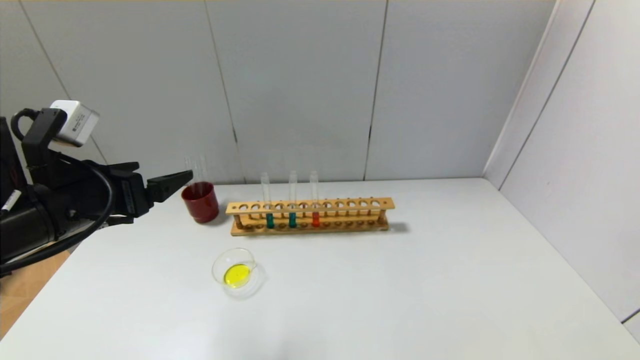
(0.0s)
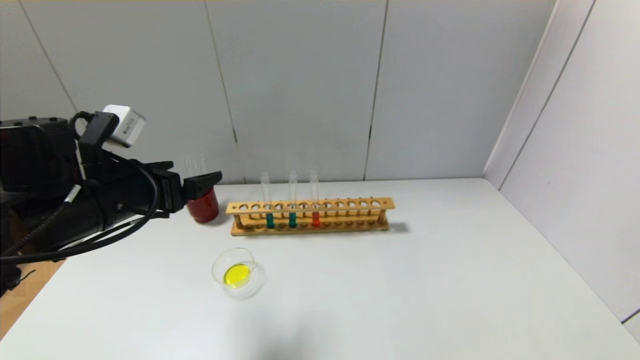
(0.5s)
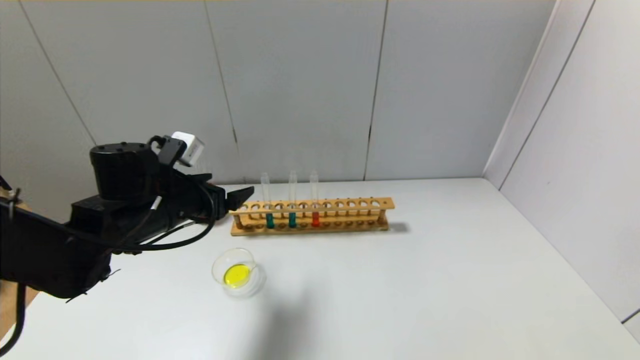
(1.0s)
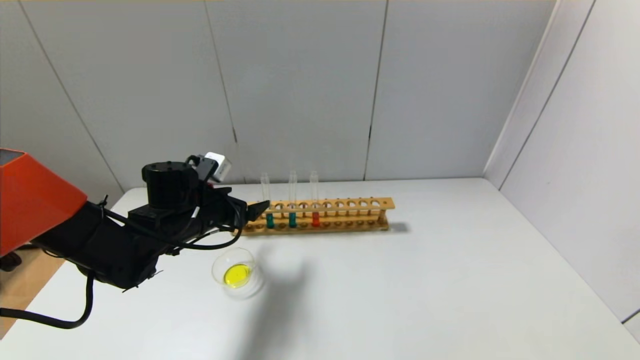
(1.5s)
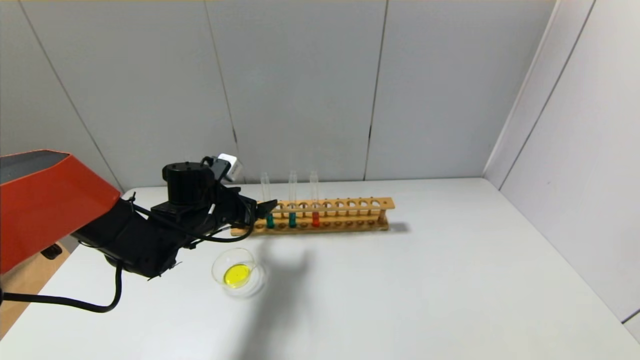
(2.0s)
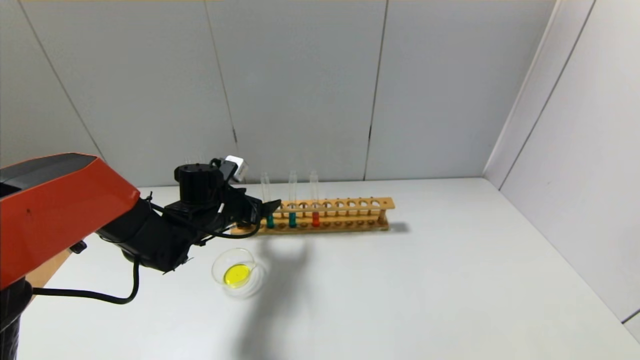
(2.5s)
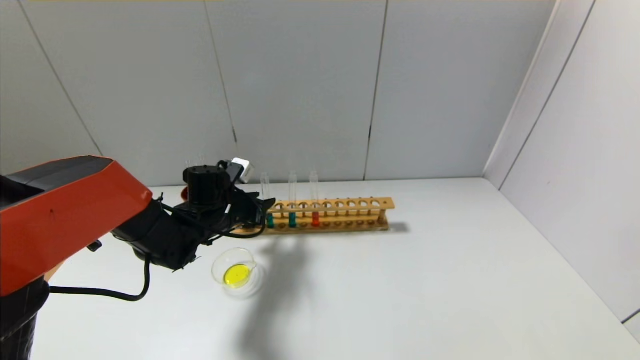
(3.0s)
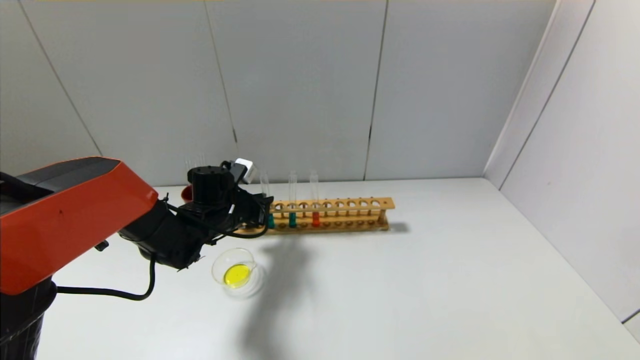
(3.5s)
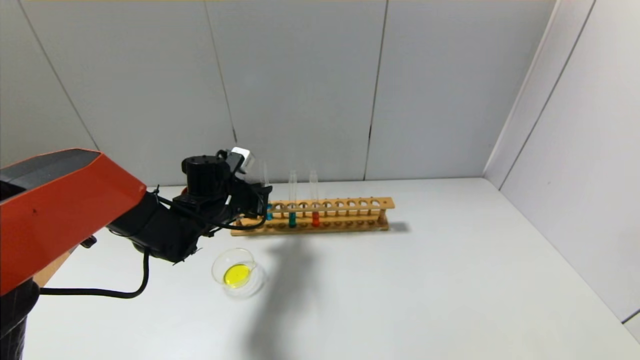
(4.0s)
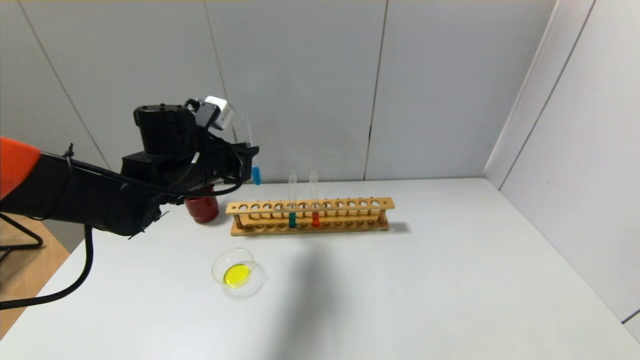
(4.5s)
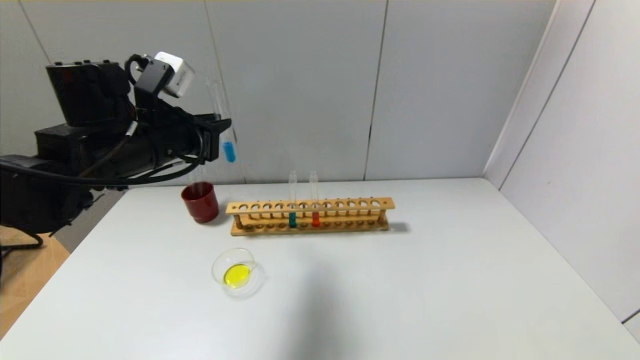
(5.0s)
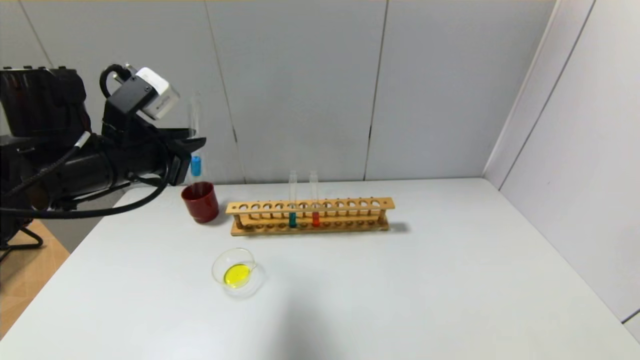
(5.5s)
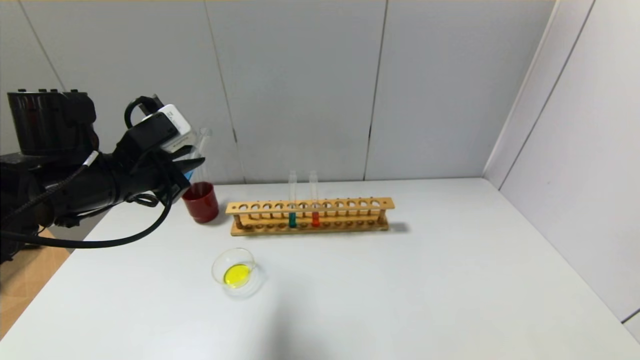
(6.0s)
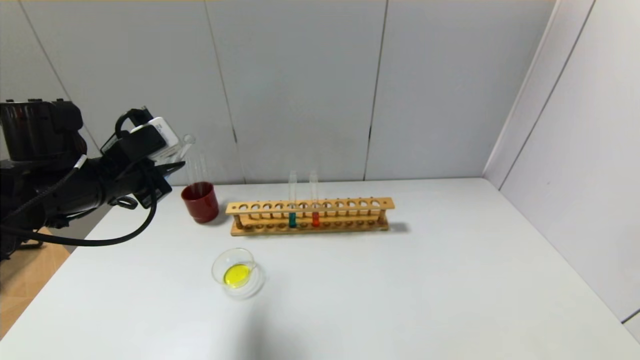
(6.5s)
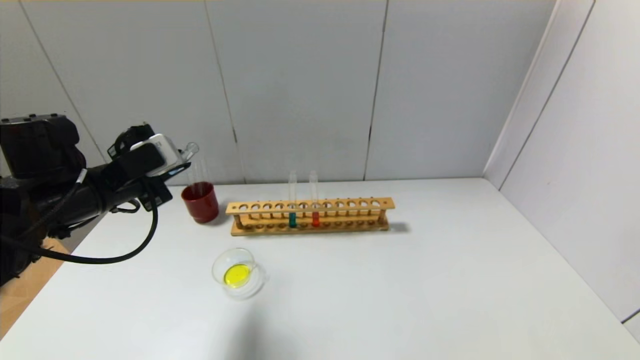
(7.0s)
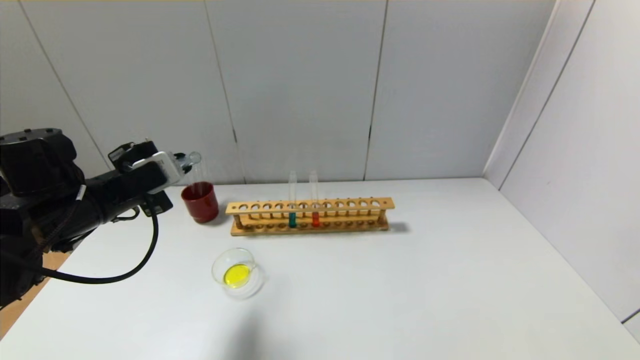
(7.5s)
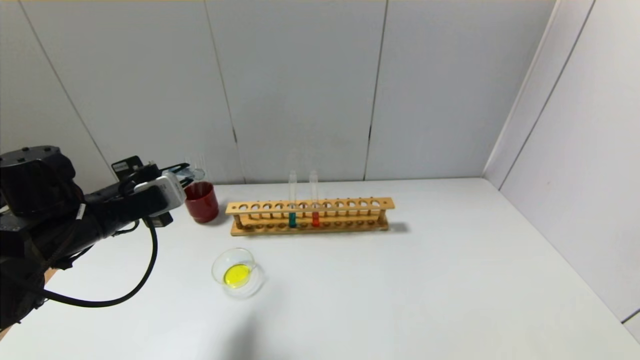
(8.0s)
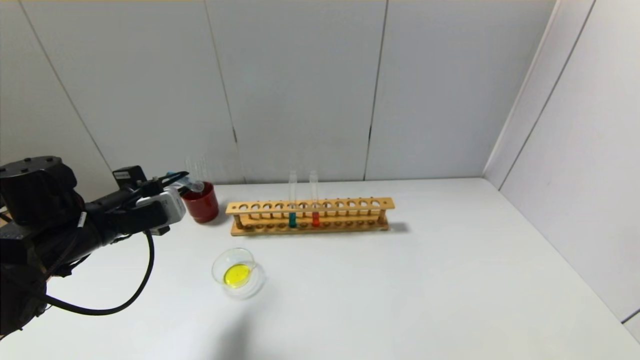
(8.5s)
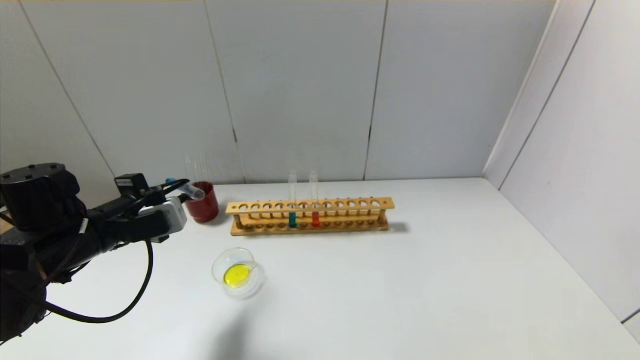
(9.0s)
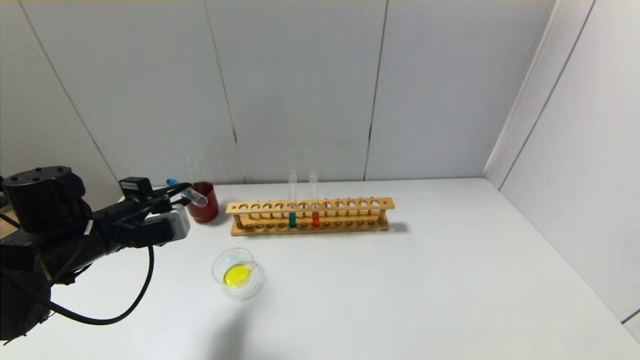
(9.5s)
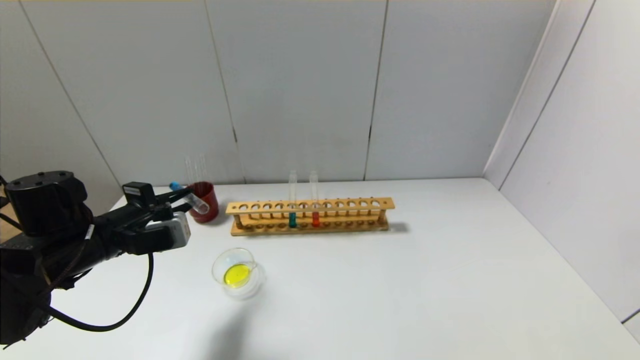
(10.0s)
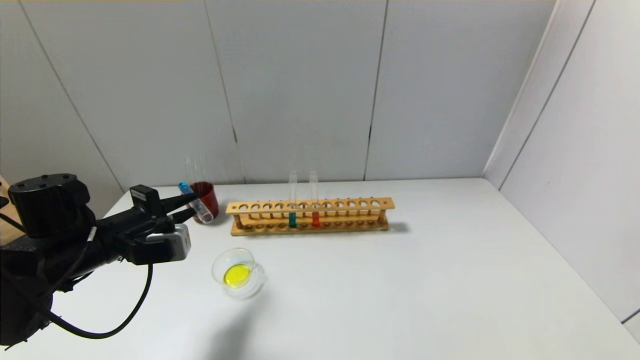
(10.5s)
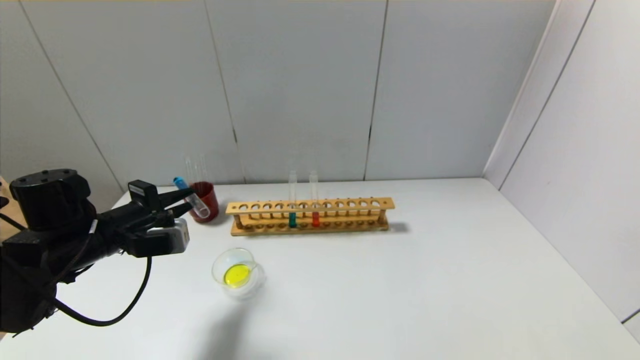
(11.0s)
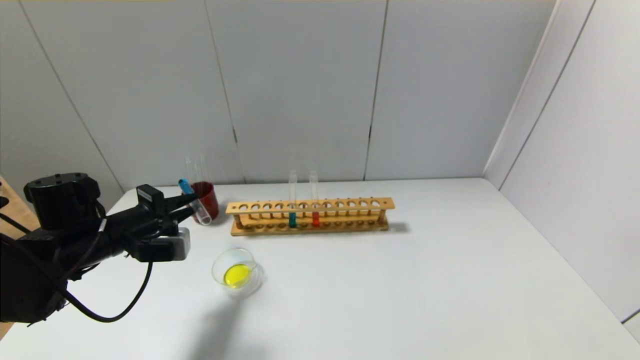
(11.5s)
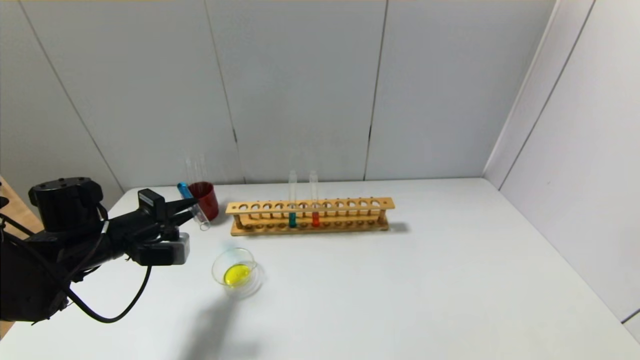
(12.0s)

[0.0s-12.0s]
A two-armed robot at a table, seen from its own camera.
Step, 0.0s to 3.5s: Grasp the blue reagent with the left gripper.
0.0s to 2.0s: The left gripper goes roughly 20 cm forward, downward and to the right.
2.0s to 4.0s: The left gripper closes.
4.0s to 6.0s: The left gripper travels upward, backward and to the left by about 20 cm.
6.0s to 8.0s: The left gripper shifts about 5 cm downward.
8.0s to 10.0s: The grippers stay close to where they were, moving slightly.
10.0s to 12.0s: The grippers make only small movements.

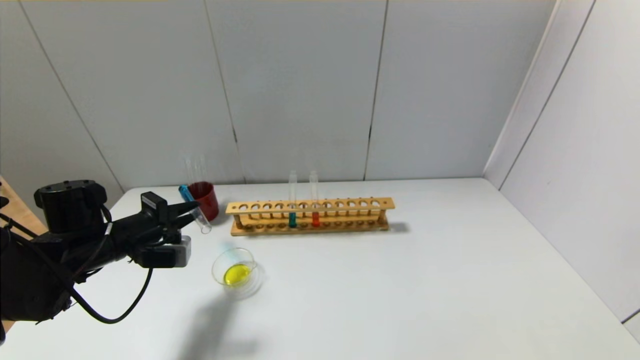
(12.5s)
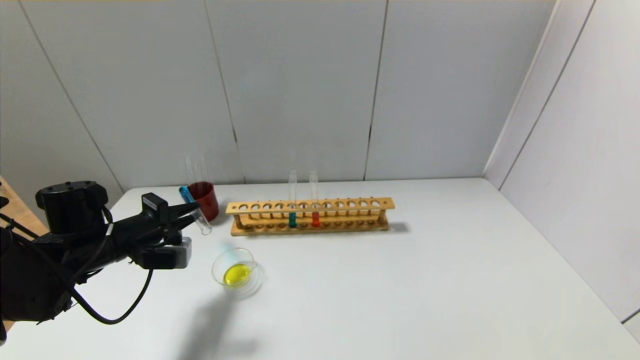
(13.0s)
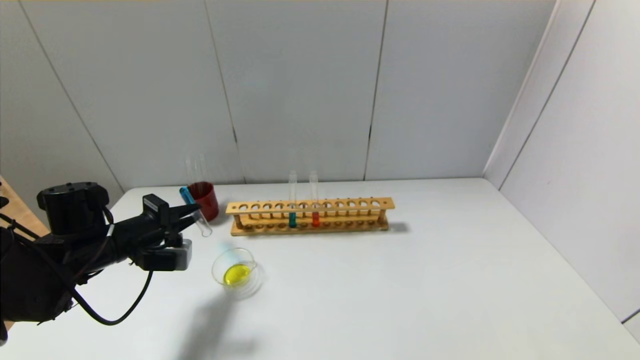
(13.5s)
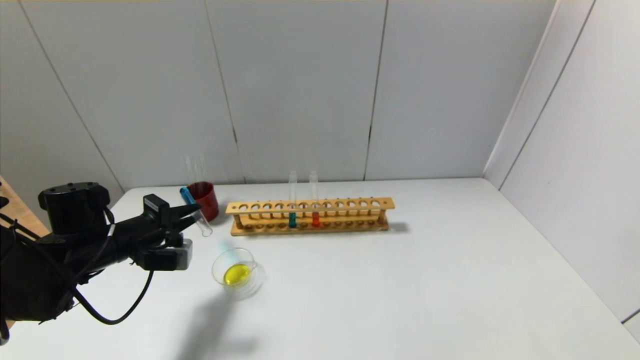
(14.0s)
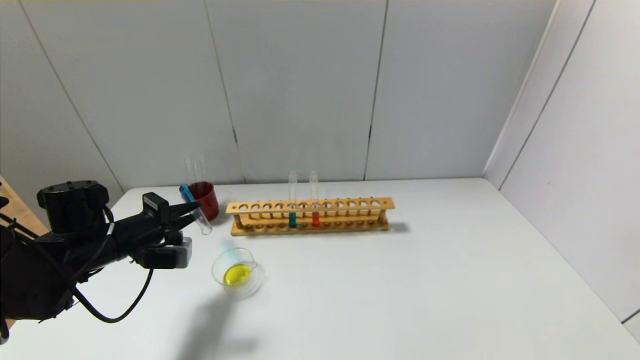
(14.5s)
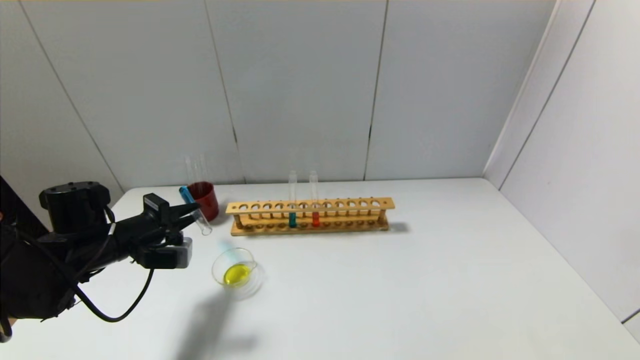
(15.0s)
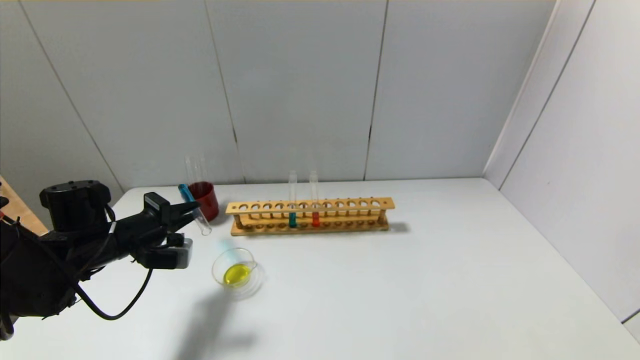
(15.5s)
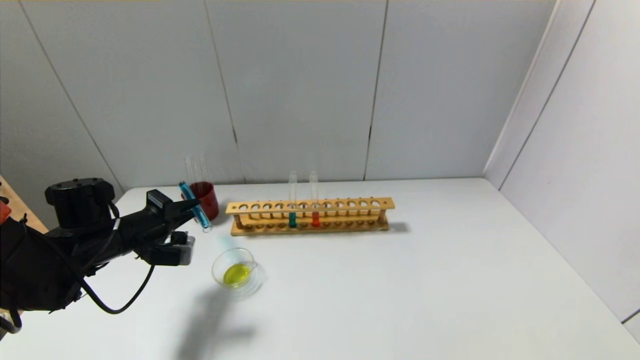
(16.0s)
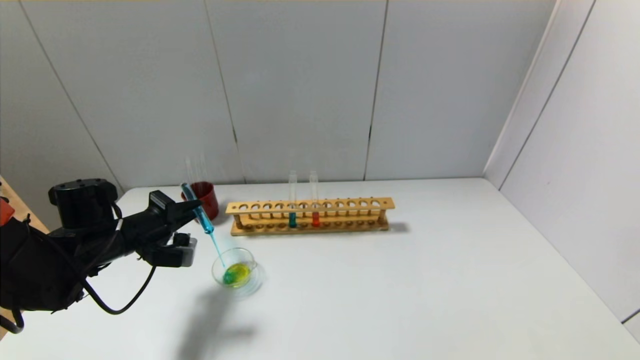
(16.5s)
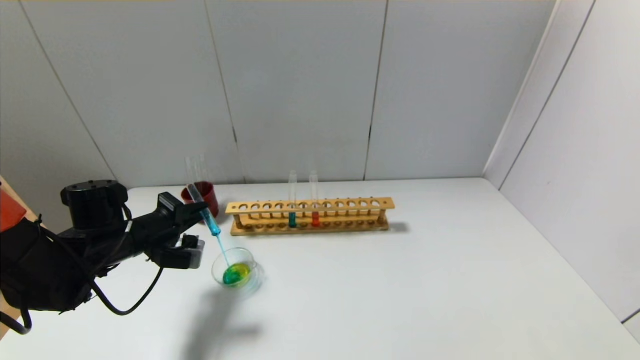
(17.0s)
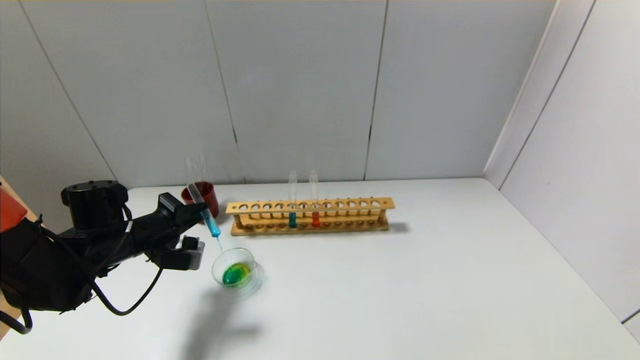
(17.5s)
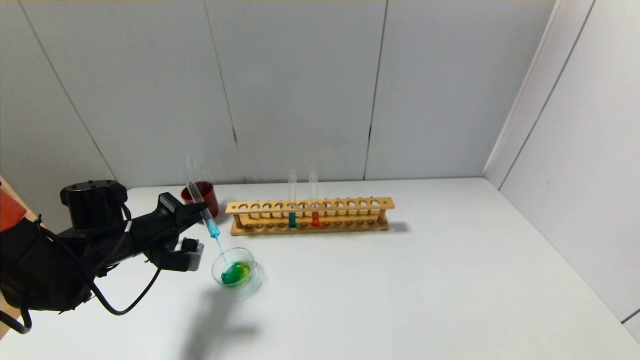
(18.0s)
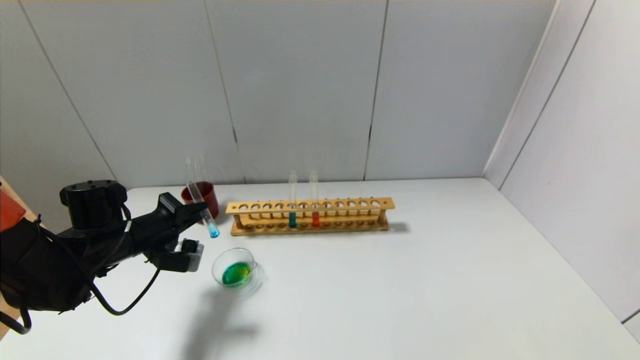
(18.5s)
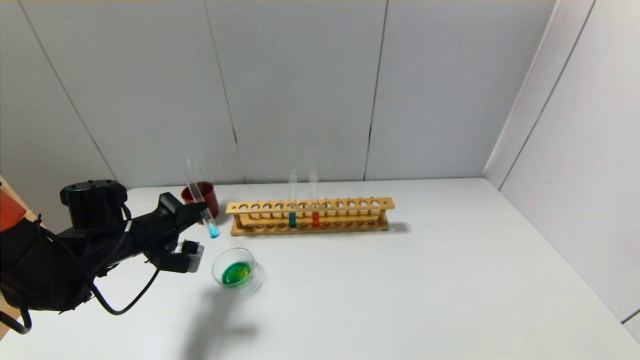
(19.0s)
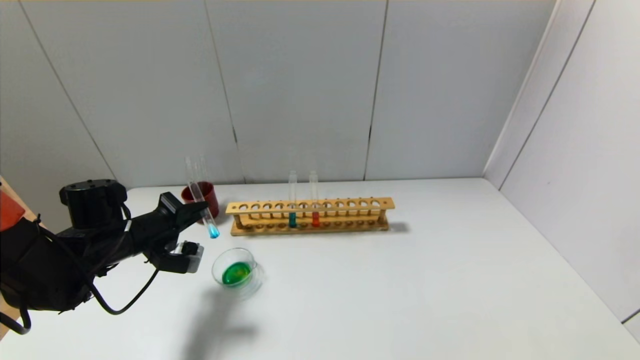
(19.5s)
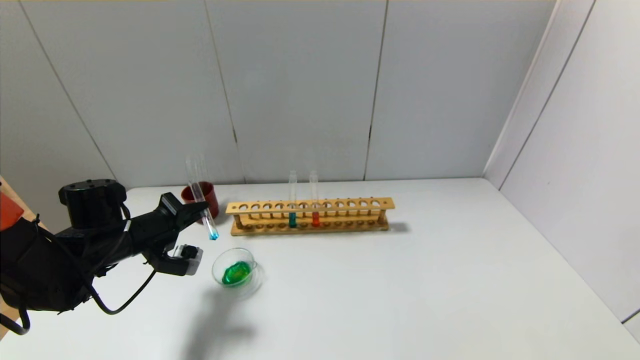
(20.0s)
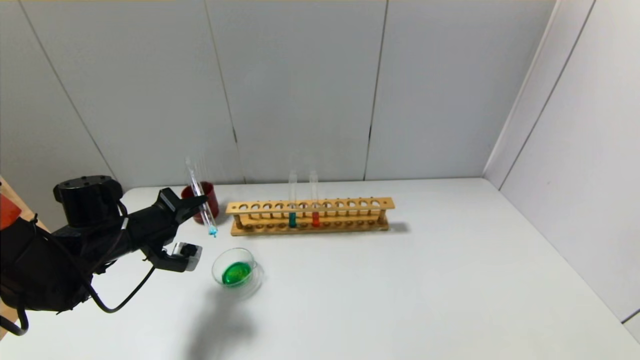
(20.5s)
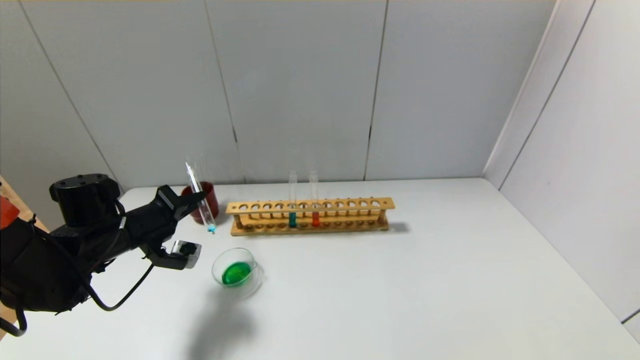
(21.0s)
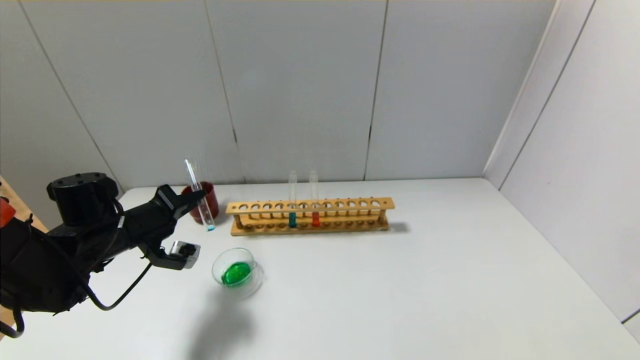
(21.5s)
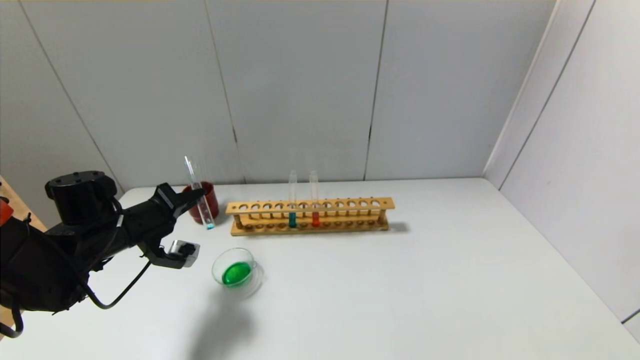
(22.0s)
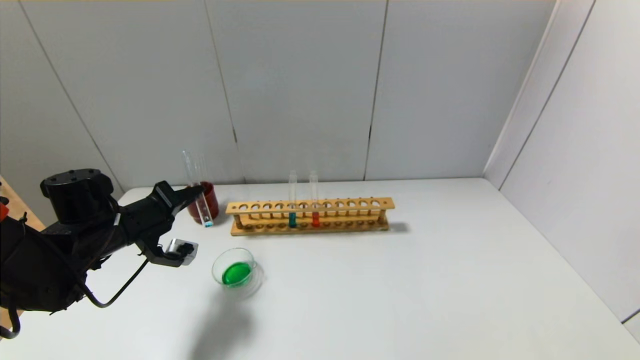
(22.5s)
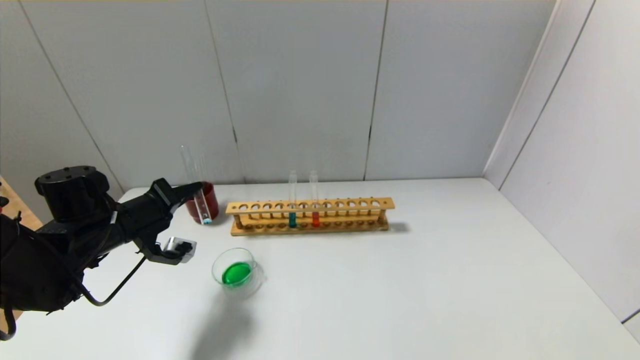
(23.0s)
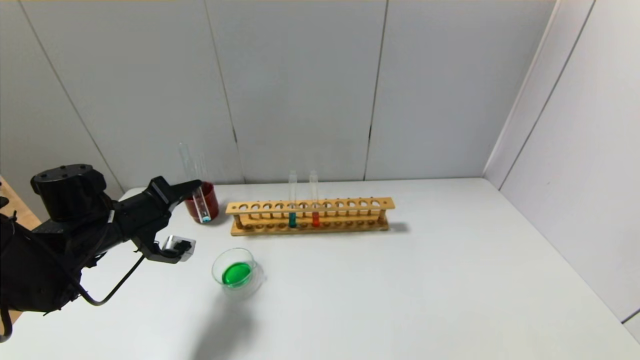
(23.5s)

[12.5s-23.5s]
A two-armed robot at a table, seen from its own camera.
12.5s to 14.5s: Neither gripper changes place.
14.5s to 20.0s: There are only small adjustments of the grippers.
20.0s to 23.5s: The grippers stay close to where they were, moving slightly.
